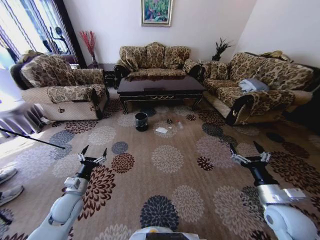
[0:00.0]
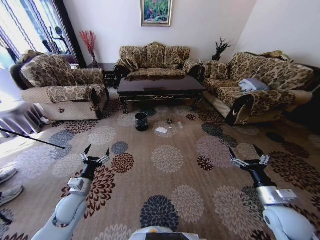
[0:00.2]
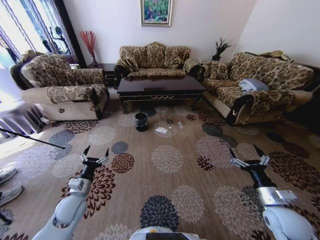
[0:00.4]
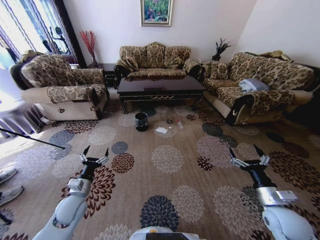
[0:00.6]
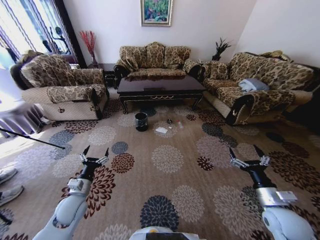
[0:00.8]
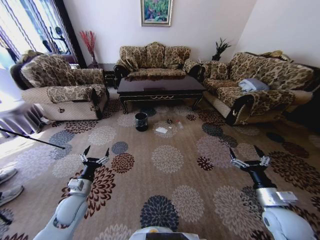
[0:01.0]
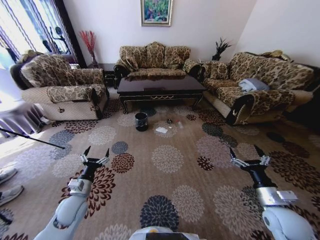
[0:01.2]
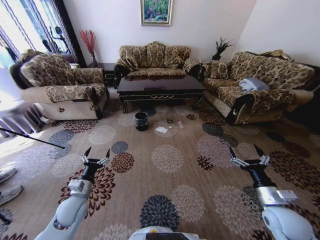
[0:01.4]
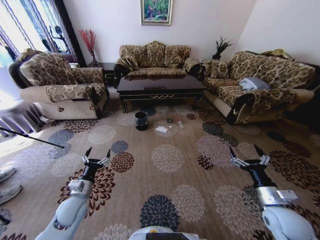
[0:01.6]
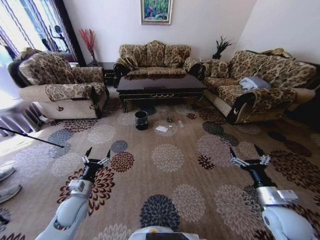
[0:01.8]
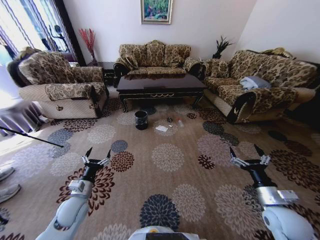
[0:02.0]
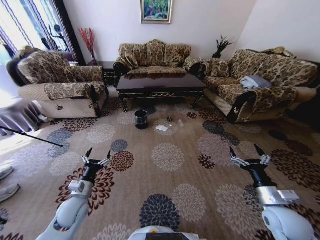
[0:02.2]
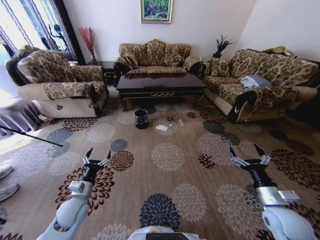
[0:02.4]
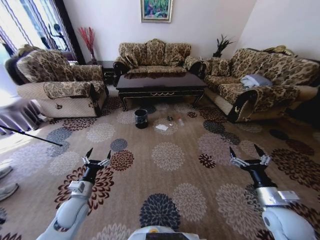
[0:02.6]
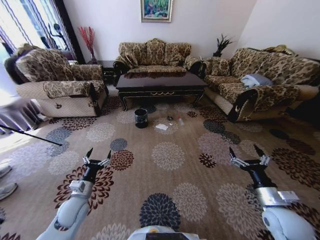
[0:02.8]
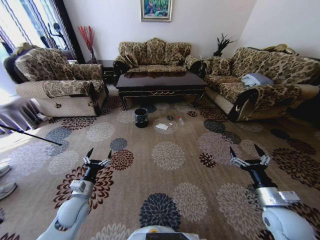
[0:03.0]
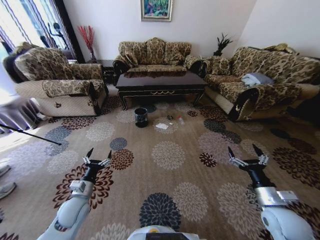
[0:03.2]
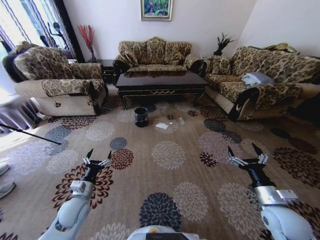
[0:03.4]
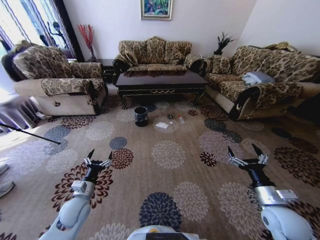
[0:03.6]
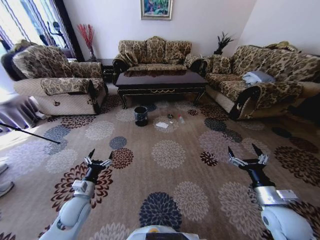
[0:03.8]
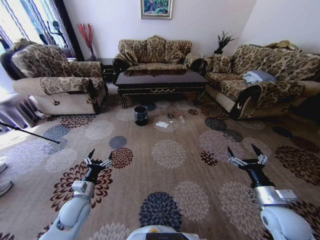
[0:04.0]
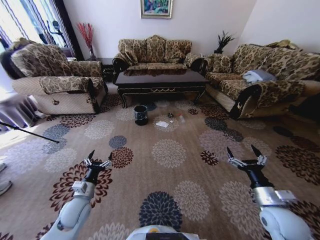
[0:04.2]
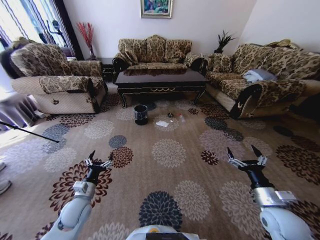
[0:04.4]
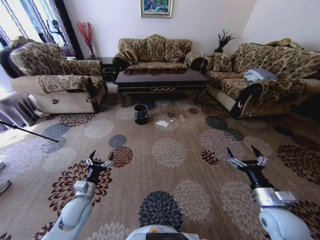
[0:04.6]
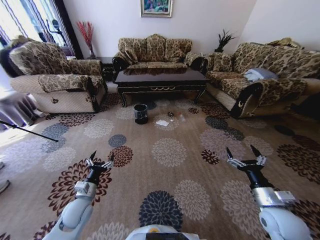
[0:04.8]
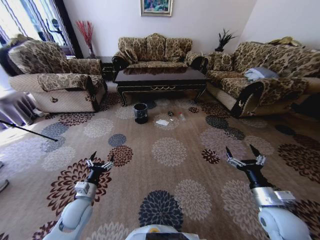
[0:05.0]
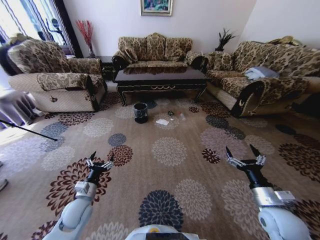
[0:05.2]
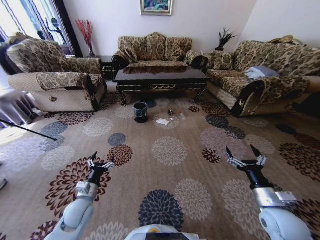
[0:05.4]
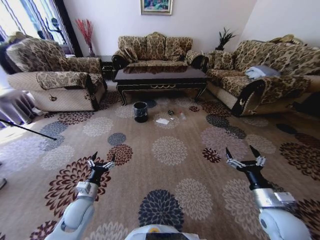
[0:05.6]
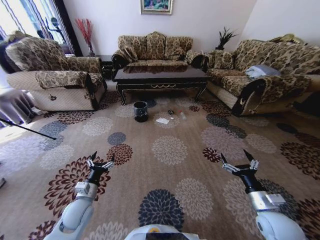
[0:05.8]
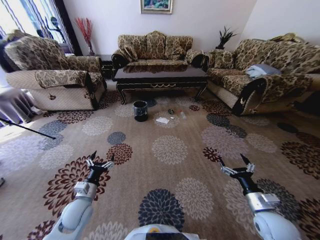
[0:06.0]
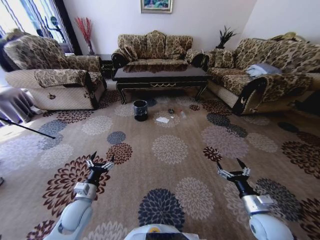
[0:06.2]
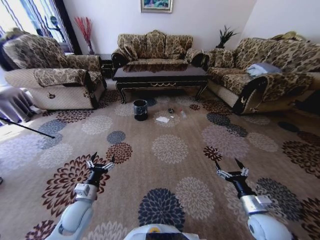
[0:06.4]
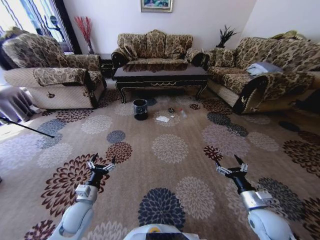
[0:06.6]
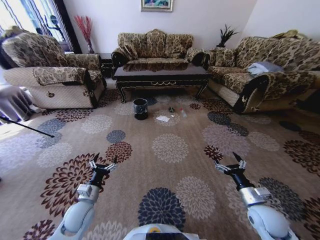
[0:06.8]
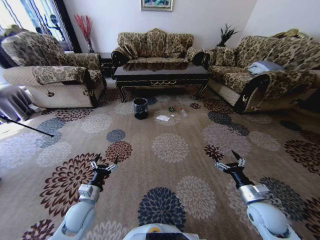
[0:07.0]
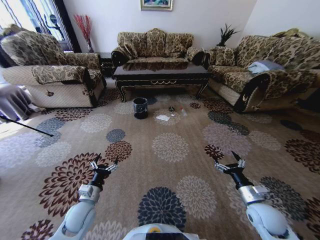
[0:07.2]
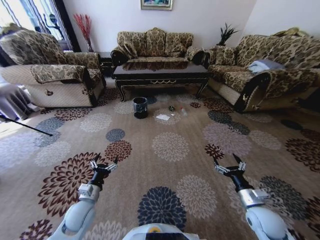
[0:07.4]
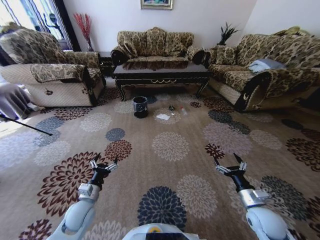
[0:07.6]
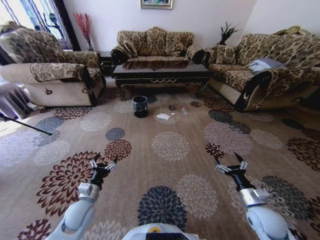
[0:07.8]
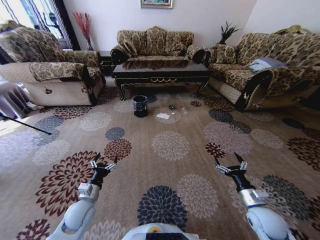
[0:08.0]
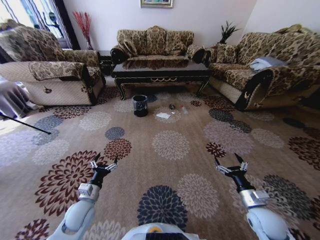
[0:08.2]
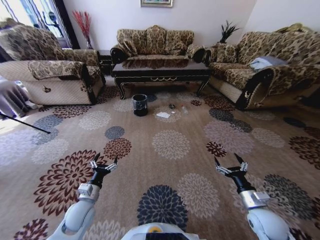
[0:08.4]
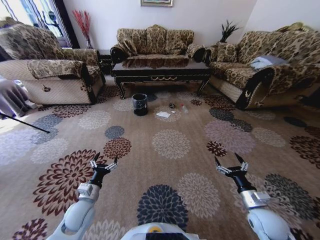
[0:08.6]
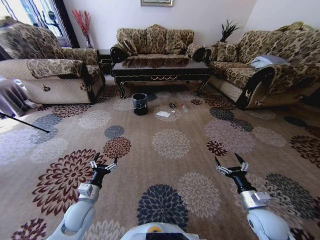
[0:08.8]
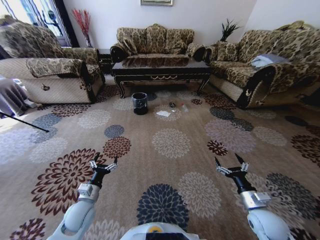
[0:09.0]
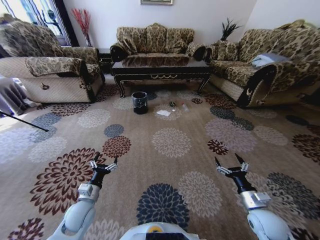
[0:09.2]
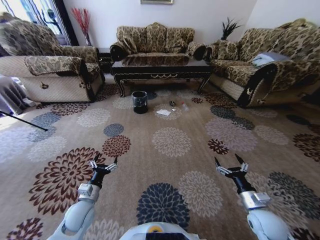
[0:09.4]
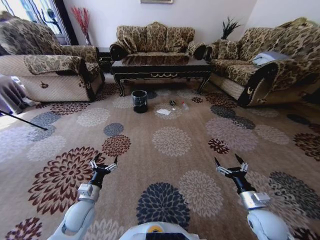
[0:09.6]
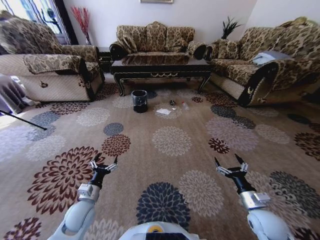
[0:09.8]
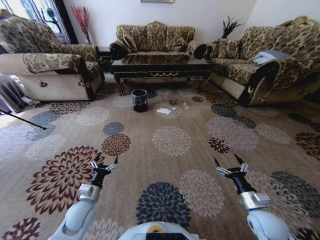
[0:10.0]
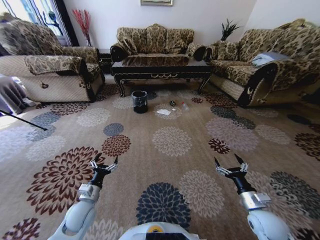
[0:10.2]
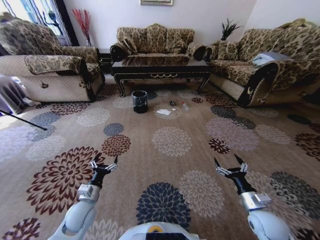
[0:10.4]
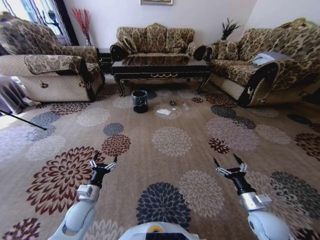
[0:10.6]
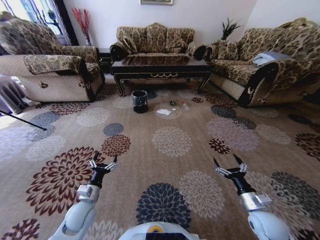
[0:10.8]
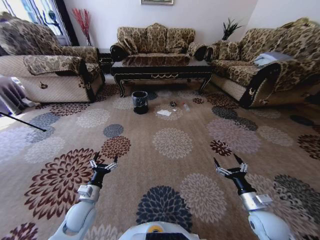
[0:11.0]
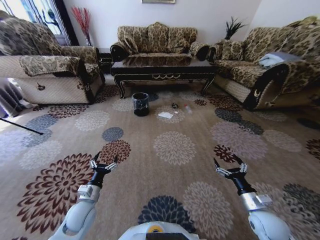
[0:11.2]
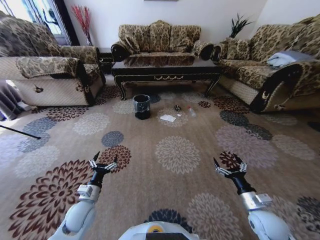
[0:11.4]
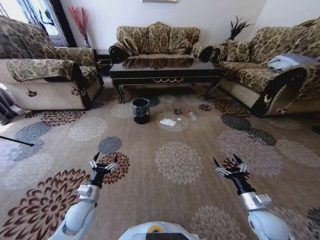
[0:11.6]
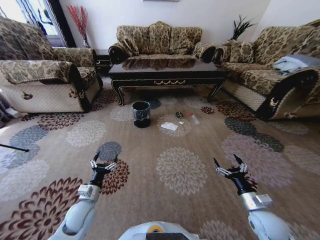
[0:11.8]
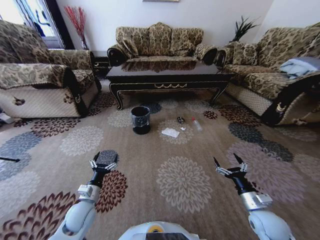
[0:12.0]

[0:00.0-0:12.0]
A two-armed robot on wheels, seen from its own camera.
Task of the whole recording: Move to the front of the table and pick up the trash from the floor, then place it into the trash bin.
0:09.0 to 0:10.4: The two grippers keep their place.

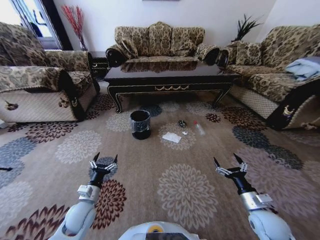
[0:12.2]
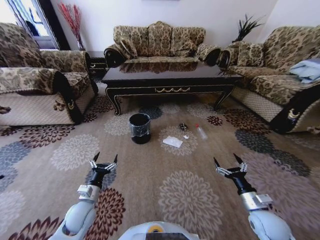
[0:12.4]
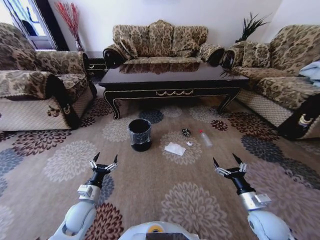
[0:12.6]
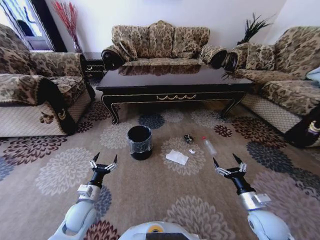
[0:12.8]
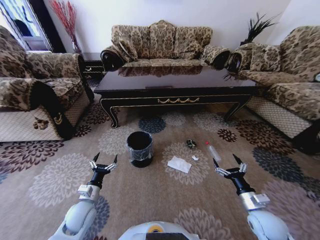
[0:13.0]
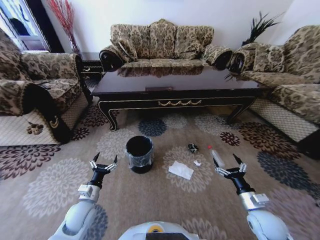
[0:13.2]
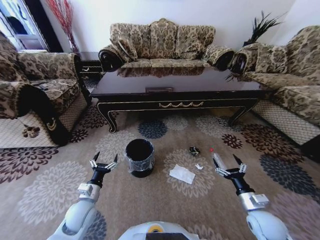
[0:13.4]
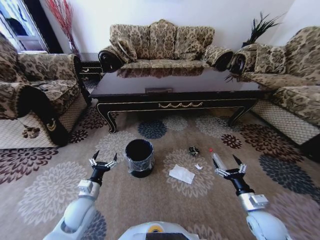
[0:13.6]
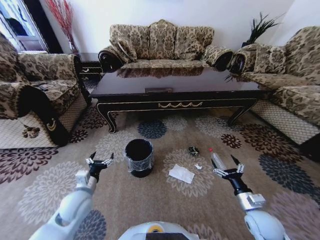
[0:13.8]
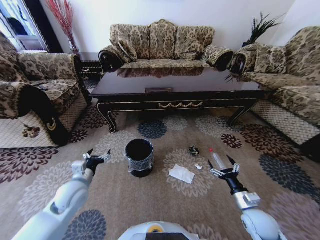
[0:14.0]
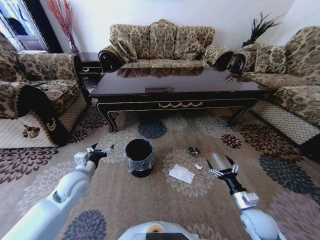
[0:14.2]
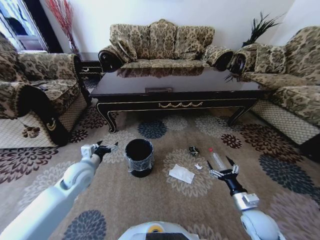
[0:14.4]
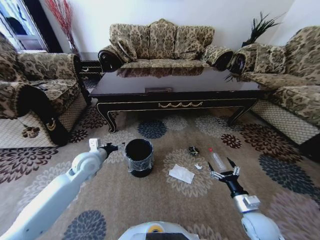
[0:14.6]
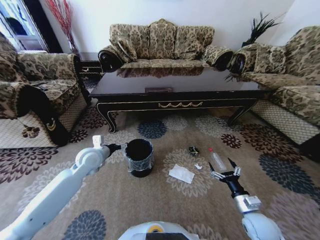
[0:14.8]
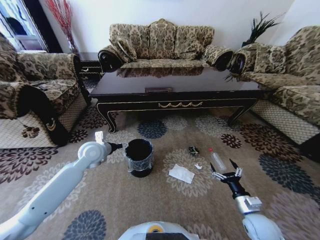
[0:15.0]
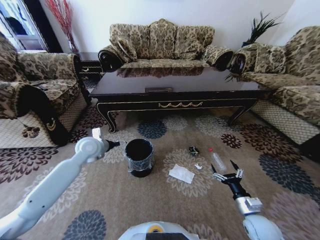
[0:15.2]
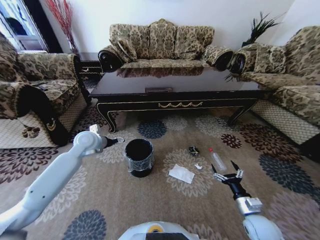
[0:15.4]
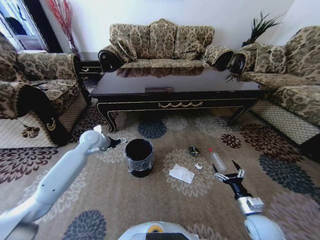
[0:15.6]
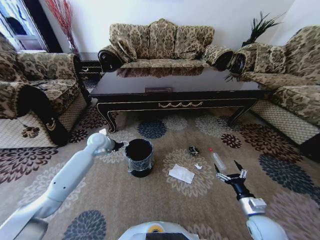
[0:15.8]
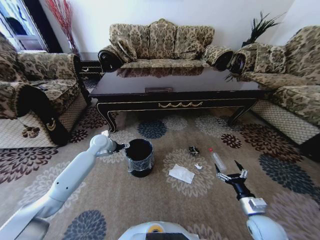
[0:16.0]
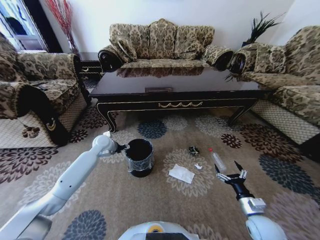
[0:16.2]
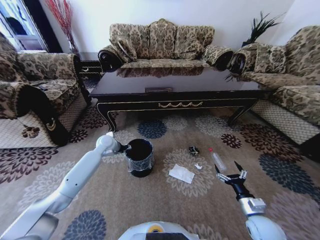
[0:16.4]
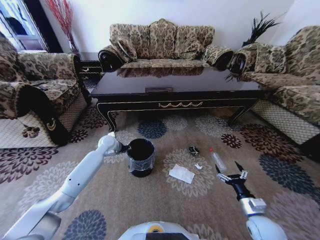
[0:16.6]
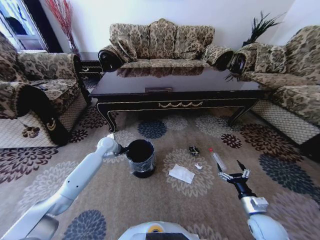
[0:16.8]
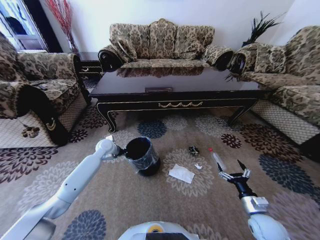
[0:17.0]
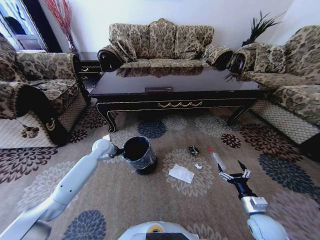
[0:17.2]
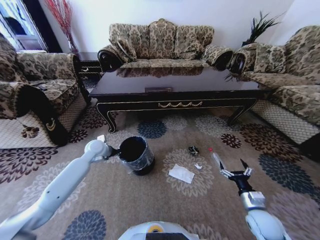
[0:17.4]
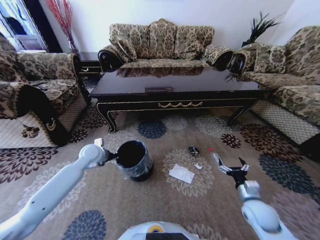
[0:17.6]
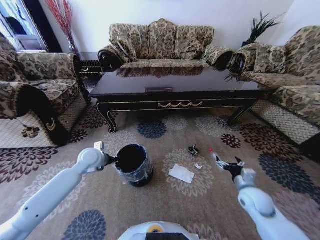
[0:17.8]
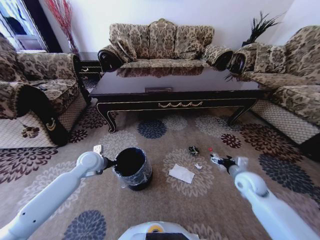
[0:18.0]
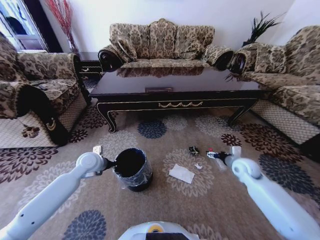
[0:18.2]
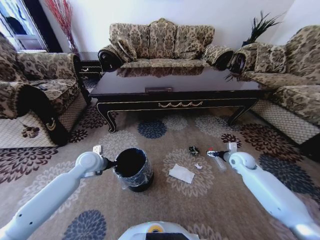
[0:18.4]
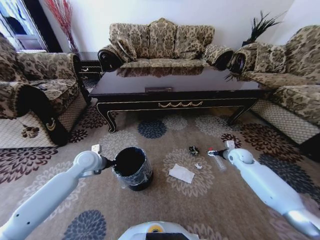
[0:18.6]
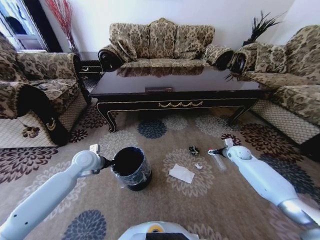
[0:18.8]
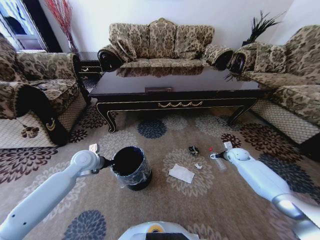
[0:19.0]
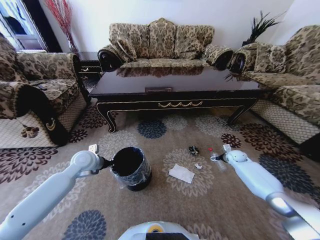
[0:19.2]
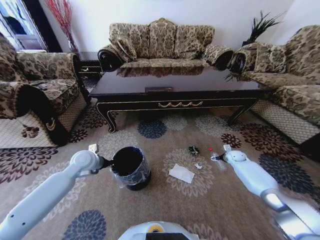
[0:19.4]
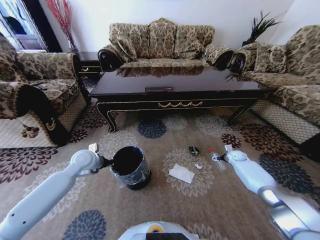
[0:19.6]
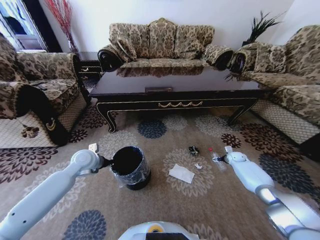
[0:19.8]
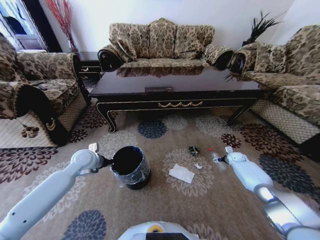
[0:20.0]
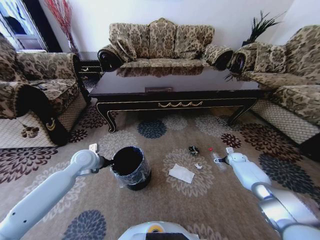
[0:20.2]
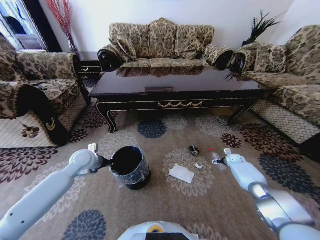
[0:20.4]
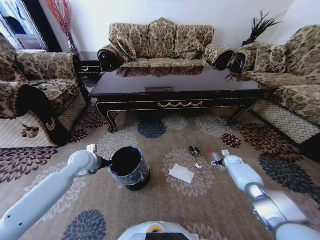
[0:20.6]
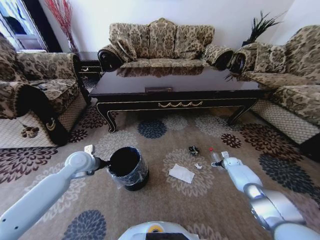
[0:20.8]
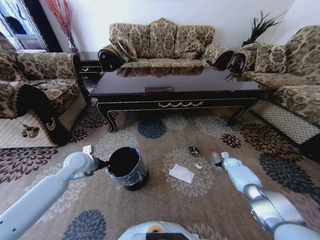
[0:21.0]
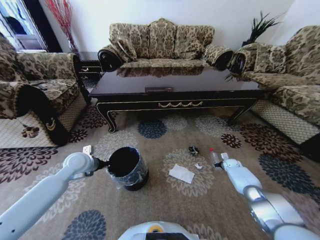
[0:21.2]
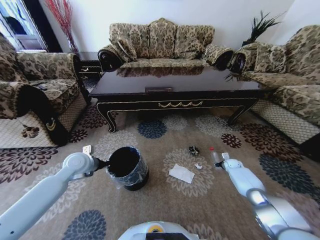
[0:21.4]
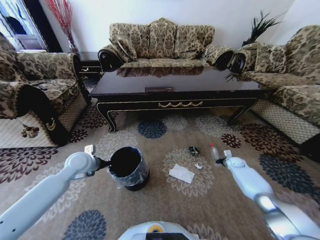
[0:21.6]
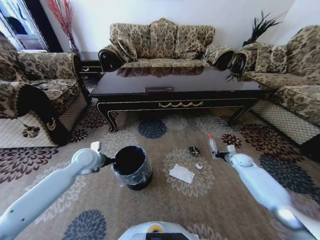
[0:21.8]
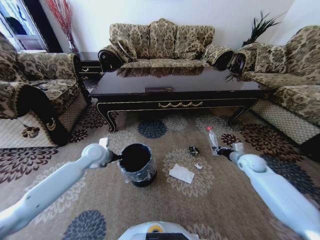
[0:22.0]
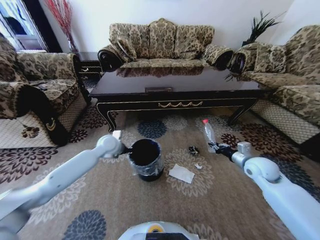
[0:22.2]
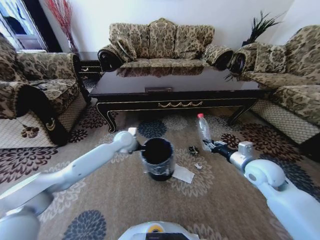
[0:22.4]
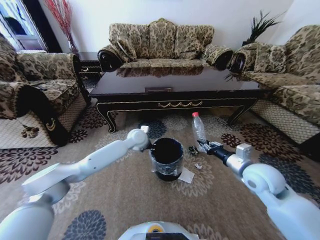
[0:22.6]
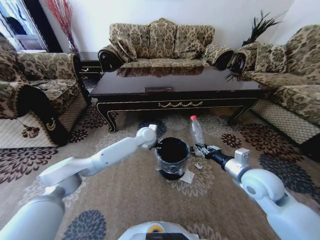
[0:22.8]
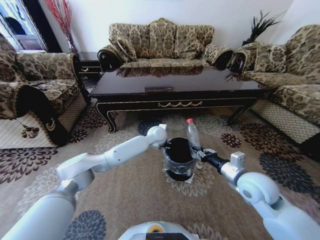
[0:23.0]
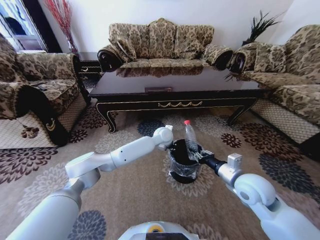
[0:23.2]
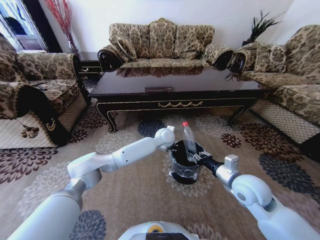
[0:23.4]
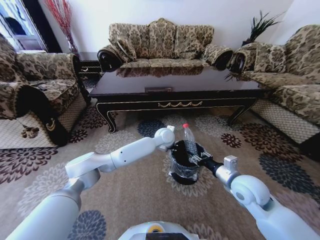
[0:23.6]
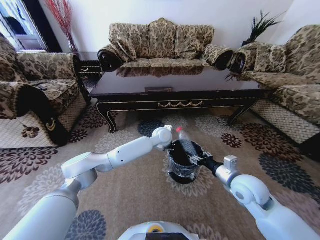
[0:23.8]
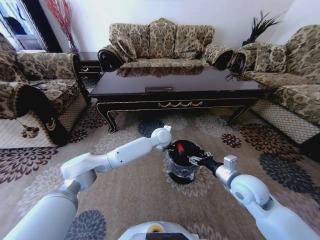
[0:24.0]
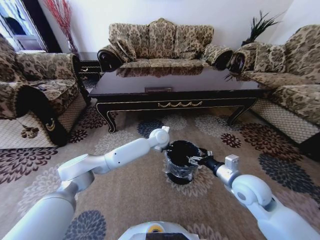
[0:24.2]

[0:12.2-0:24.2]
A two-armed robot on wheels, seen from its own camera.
Task of the whole recording: Move to the front of the table and pick up the trash from the floor, then place it into the trash bin.
0:12.2 to 0:13.8: The left gripper heads upward, covering some 5 cm.
0:13.8 to 0:15.2: The left gripper shifts approximately 20 cm forward and upward.
0:15.2 to 0:16.6: The left gripper goes approximately 10 cm forward and downward, and closes its fingers.
0:16.6 to 0:18.2: The left gripper travels backward by about 10 cm, and closes; the right gripper heads forward and upward, covering some 20 cm.
0:18.2 to 0:19.8: The right gripper shifts about 20 cm forward, downward and to the right.
0:19.8 to 0:21.2: The right gripper shifts some 5 cm downward, and closes.
0:21.2 to 0:22.6: The right gripper travels upward, backward and to the left by roughly 40 cm, and closes; the left gripper heads to the right and forward, covering about 25 cm.
0:22.6 to 0:24.2: The right gripper shifts by roughly 5 cm, and opens, while the left gripper is displaced to the right by roughly 10 cm.
